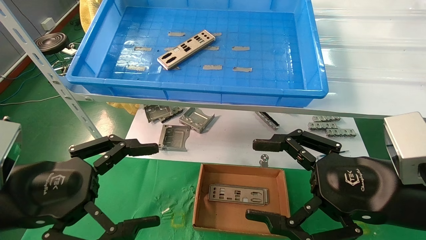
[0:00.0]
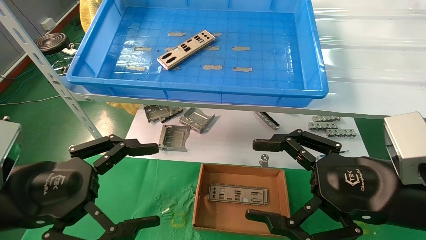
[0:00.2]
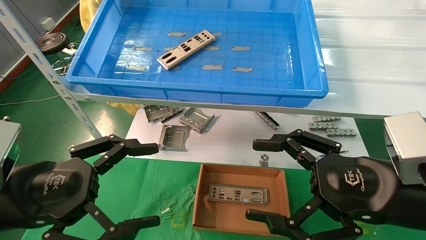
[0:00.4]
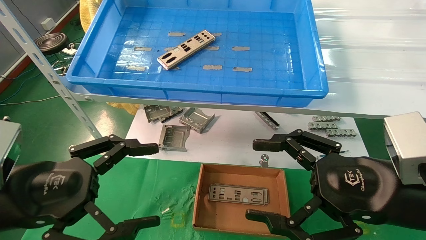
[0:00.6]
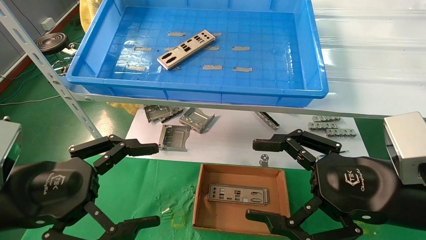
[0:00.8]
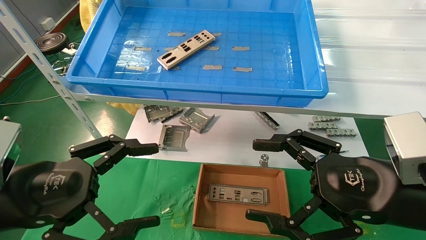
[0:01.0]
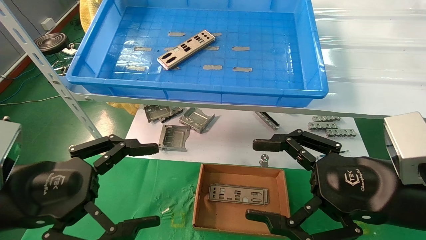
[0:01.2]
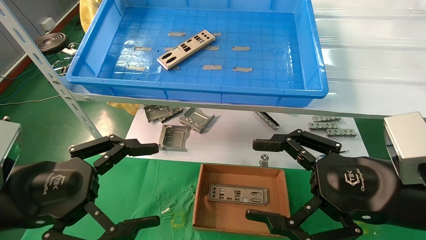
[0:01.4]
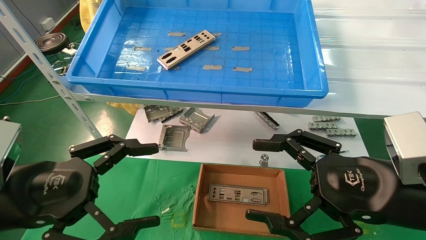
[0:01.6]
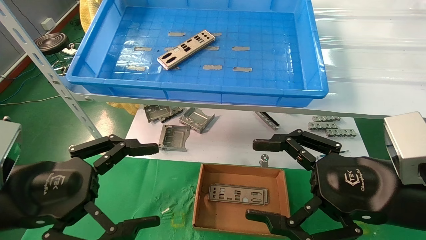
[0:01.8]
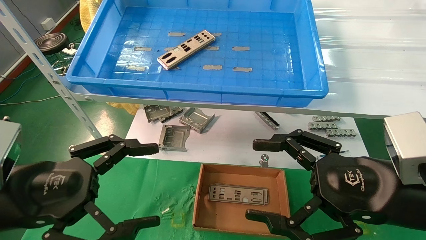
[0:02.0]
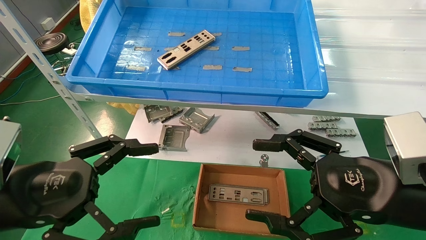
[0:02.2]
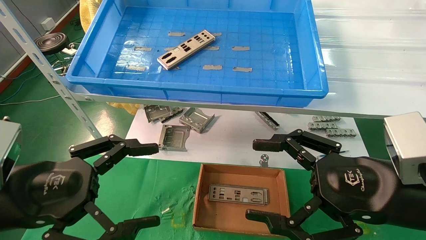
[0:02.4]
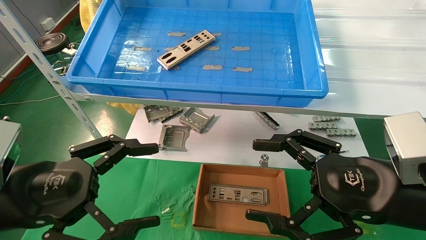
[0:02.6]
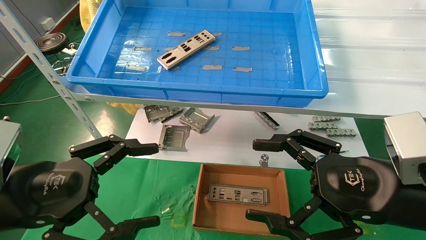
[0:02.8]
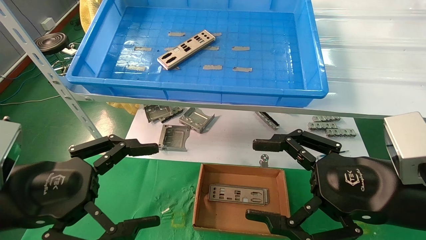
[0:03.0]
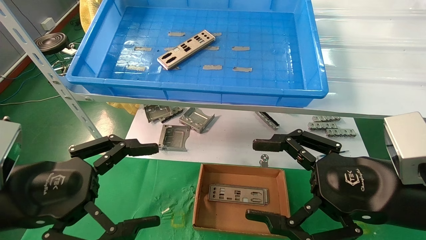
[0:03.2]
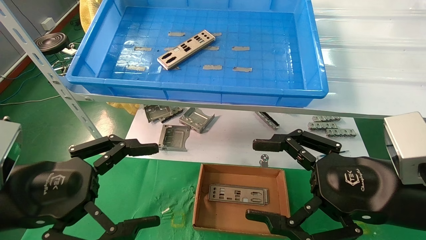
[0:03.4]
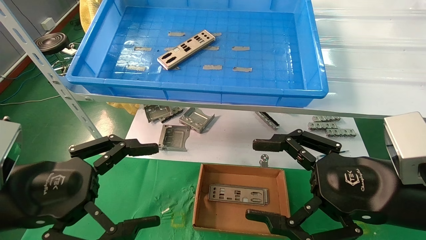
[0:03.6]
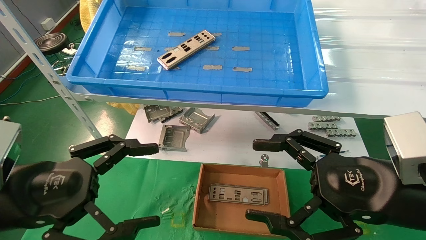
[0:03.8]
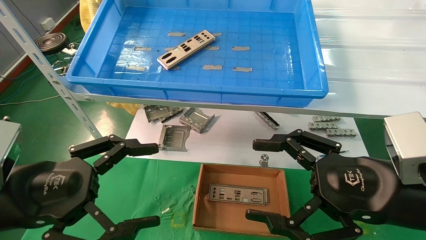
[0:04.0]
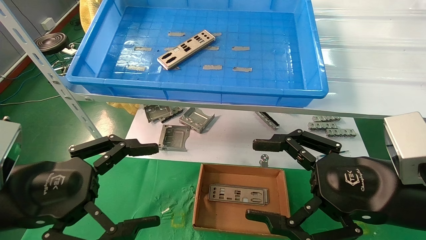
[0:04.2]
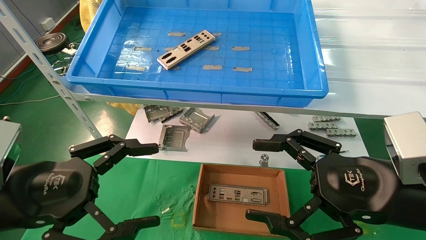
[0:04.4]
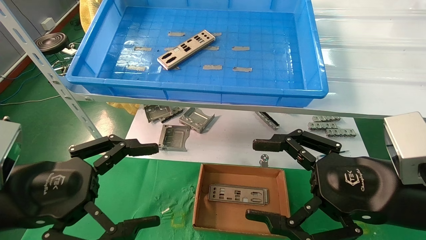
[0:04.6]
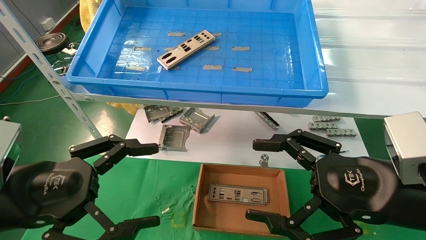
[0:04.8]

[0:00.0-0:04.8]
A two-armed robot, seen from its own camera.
Task of the whole recording: pick up the parts on the tray and put them in the cardboard box.
0:00.0 to 0:04.8: Both grippers stay put.

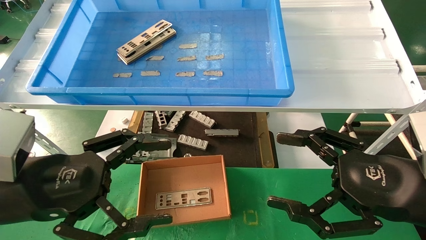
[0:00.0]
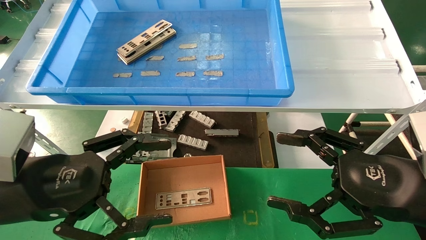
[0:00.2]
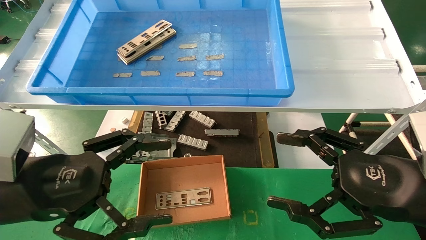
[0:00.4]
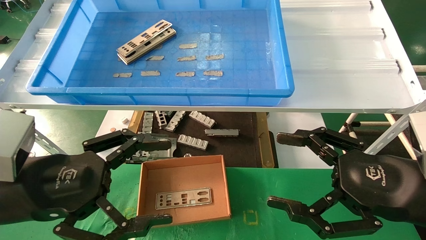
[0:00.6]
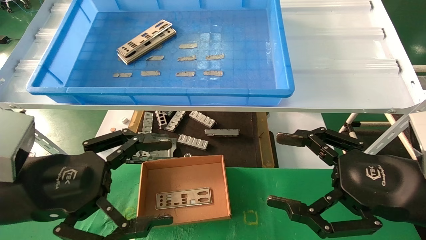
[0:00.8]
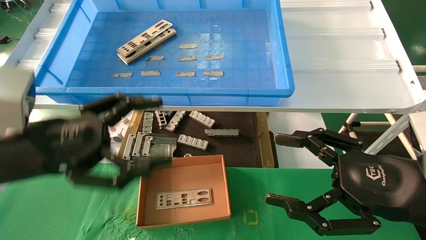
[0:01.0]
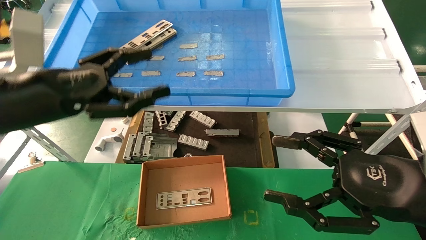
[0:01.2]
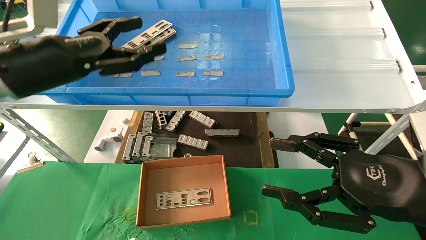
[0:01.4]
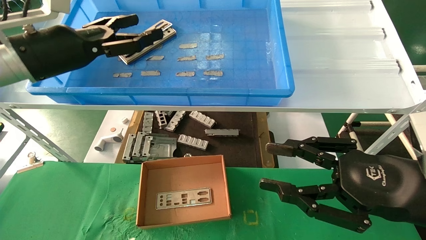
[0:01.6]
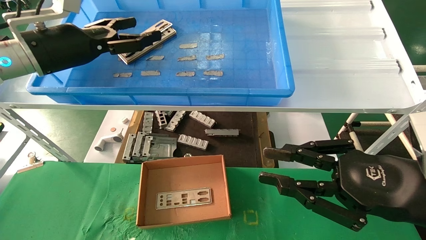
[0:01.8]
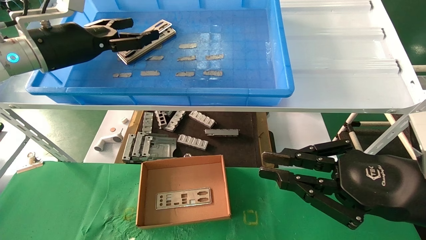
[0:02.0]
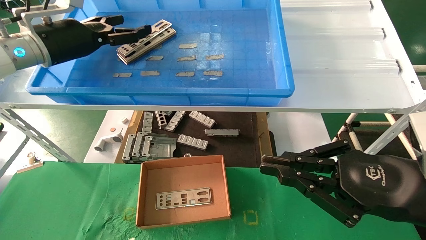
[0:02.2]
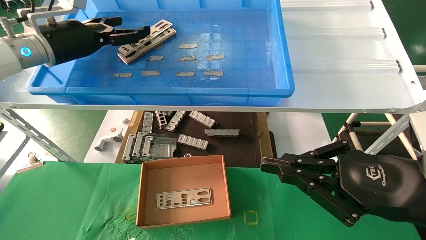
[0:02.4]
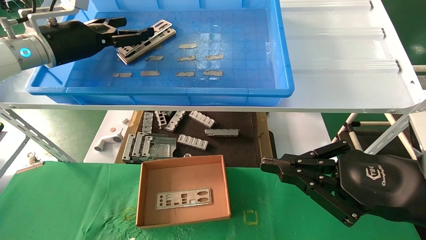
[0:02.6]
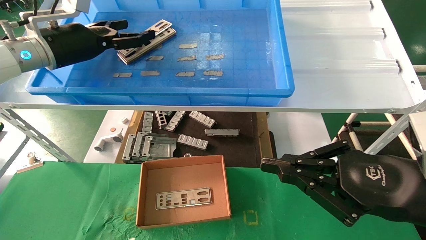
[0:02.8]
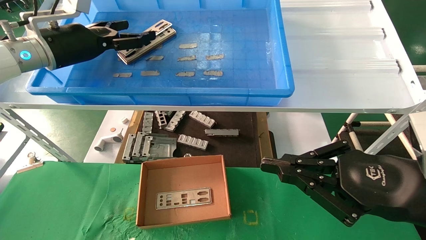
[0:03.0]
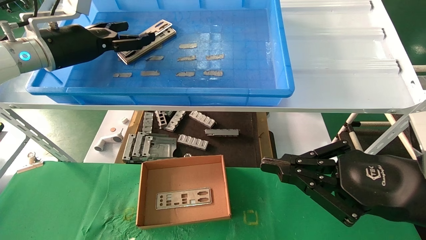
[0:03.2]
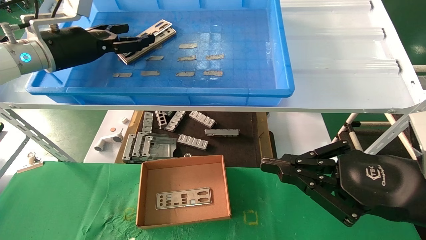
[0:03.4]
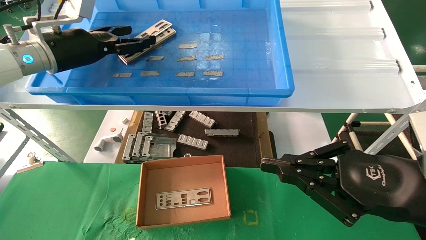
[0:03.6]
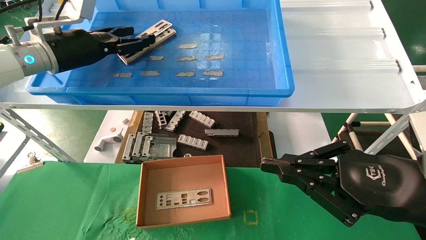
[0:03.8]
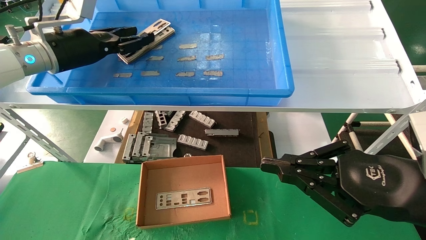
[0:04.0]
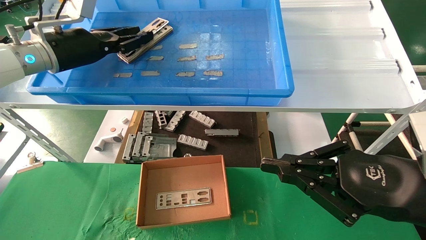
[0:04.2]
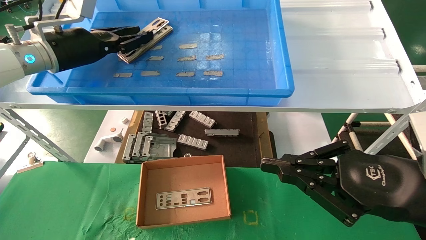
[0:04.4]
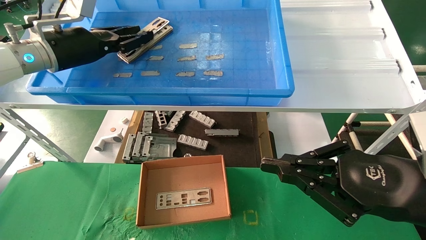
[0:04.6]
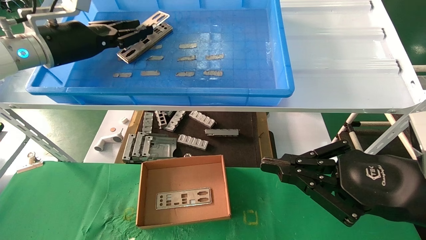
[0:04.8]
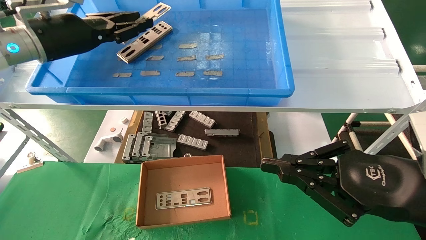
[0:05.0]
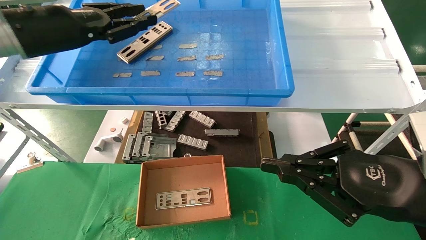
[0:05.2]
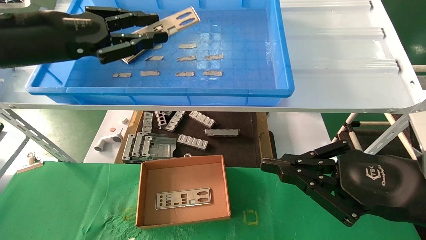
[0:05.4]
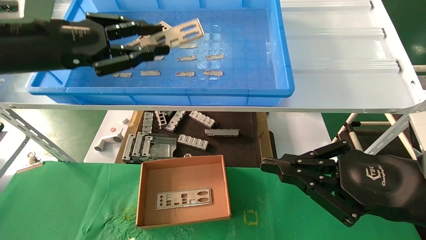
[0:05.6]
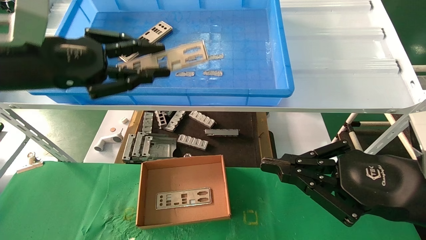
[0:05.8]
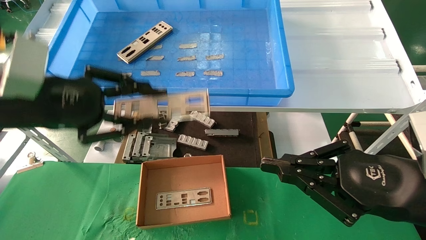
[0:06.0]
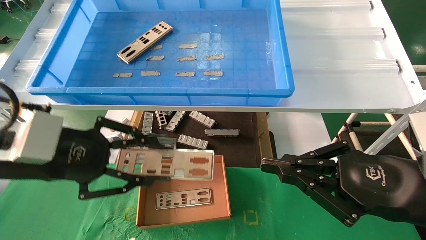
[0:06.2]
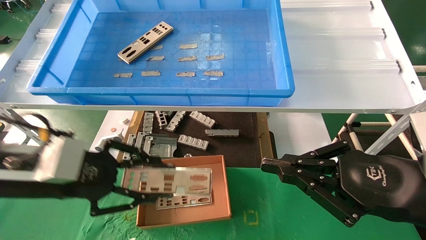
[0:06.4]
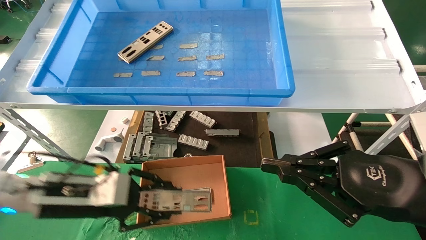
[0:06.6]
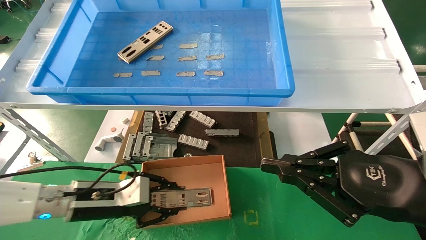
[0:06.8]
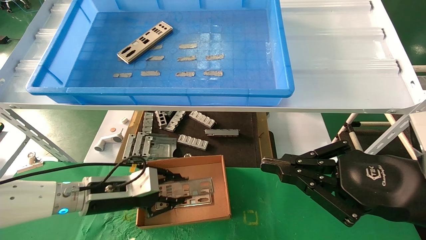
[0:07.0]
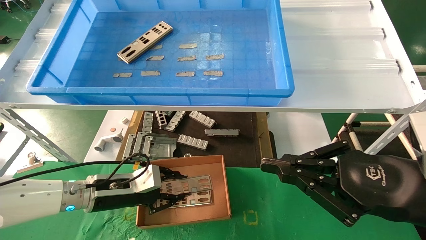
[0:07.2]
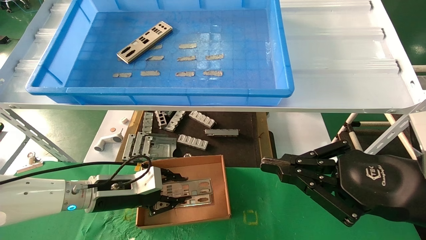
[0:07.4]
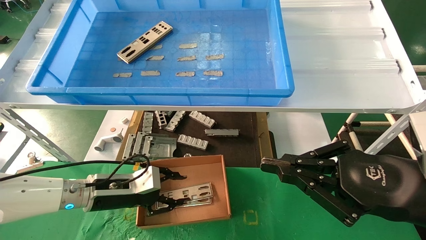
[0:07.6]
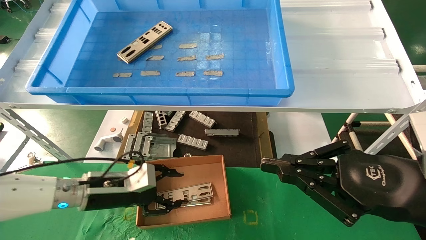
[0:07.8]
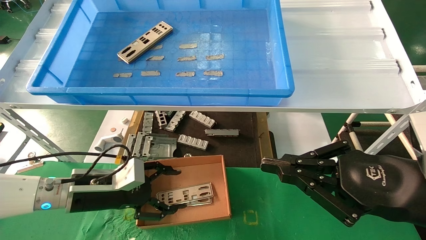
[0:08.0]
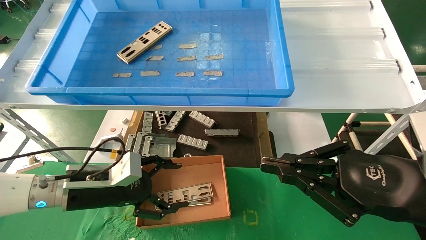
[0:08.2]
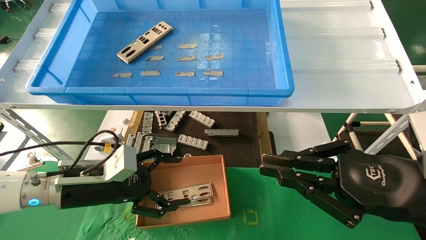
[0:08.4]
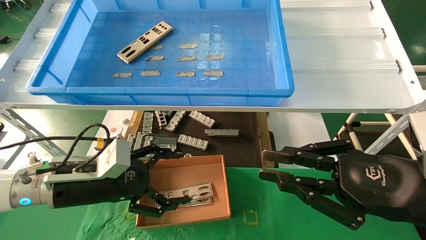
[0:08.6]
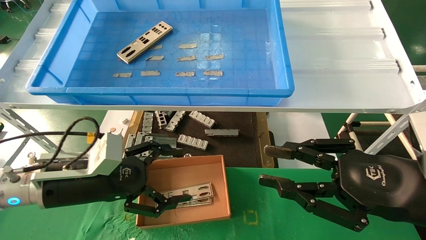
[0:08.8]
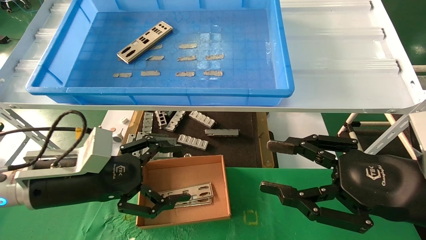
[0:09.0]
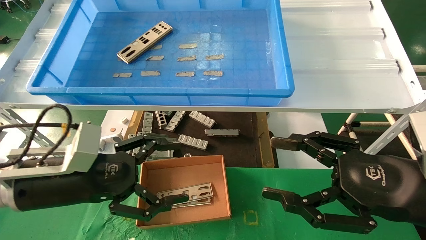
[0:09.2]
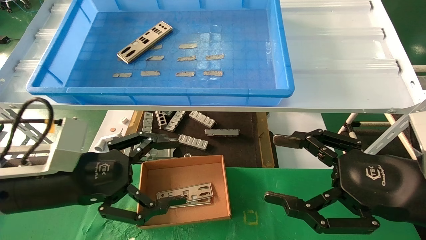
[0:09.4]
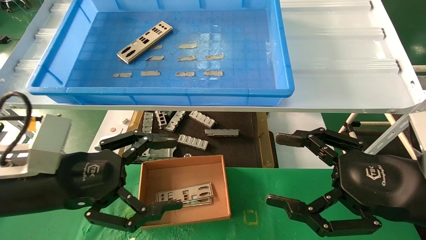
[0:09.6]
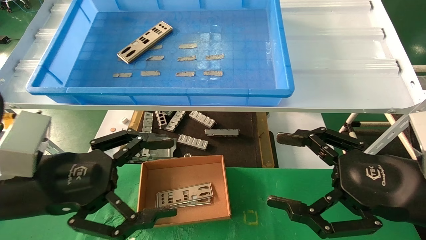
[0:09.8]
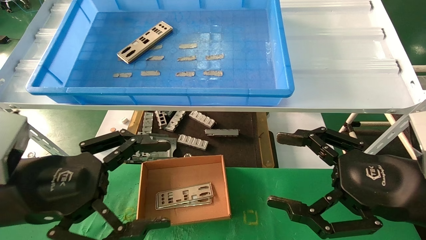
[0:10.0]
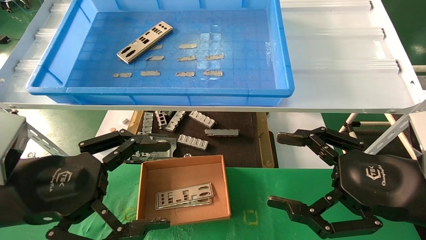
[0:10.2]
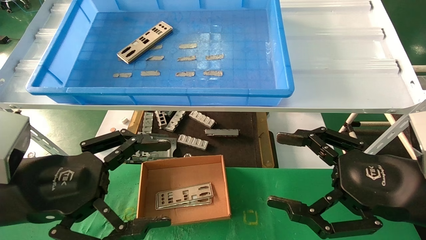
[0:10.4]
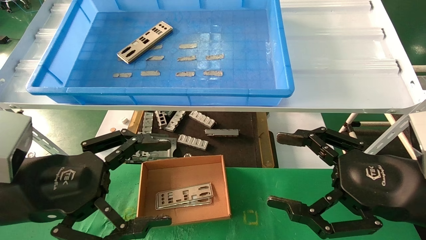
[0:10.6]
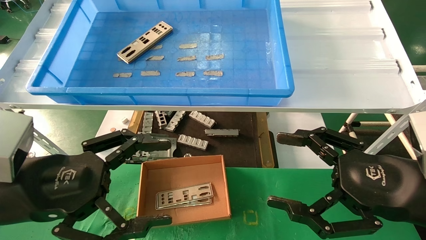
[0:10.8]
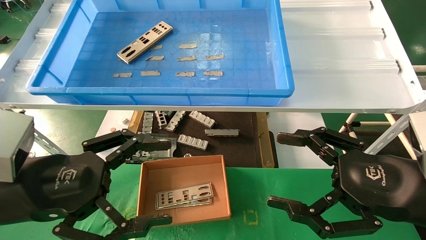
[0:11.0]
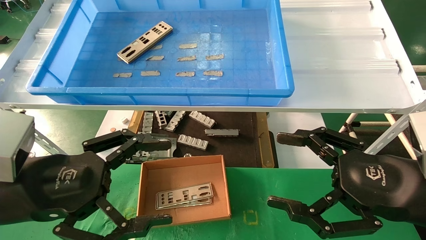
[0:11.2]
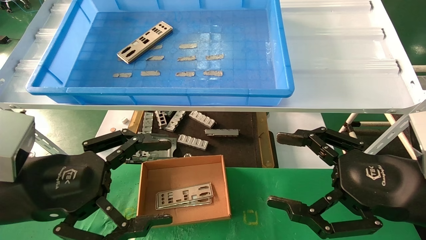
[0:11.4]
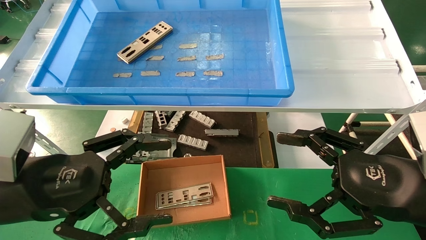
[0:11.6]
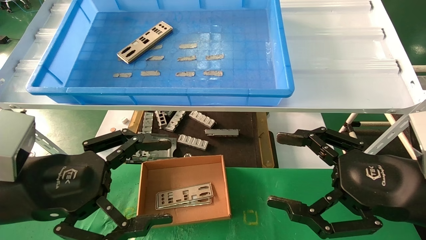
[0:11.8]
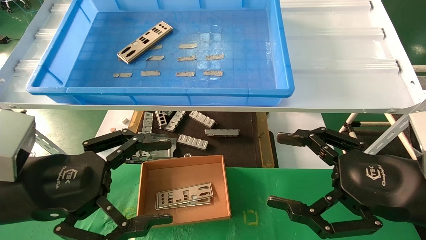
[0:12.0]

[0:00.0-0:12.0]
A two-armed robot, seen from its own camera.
Task of the whole recording: pick up the parts on the tray and put them in the cardboard box.
Step, 0:01.2 to 0:04.4: Pick up the IO bracket from the container box.
Step, 0:04.6 to 0:07.8: Place the IO bracket into the ingredient slot.
0:00.0 to 0:01.6: The right gripper closes. The left gripper travels forward and upward by about 20 cm.
0:01.6 to 0:03.0: The left gripper is displaced forward by about 5 cm. The right gripper closes up.
0:03.0 to 0:04.4: The left gripper closes.
0:04.4 to 0:06.0: The left gripper shifts roughly 15 cm backward.
0:06.0 to 0:07.6: The left gripper moves downward and forward, about 25 cm.
0:07.6 to 0:09.0: The left gripper moves backward and upward, approximately 10 cm, and opens; the right gripper opens its fingers.
0:09.0 to 0:10.4: The left gripper goes approximately 10 cm backward. Meanwhile the right gripper opens its fingers.
0:10.4 to 0:12.0: The two grippers keep their place.
